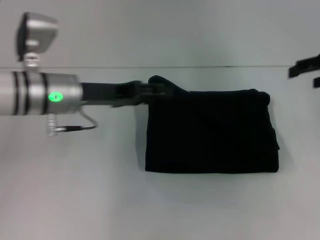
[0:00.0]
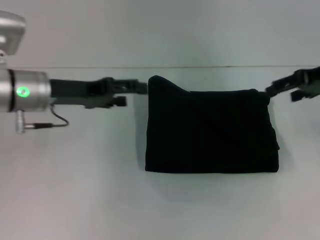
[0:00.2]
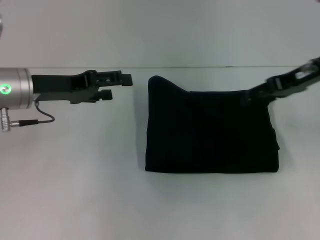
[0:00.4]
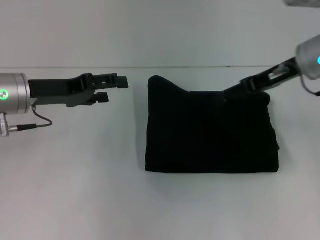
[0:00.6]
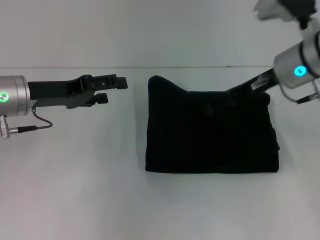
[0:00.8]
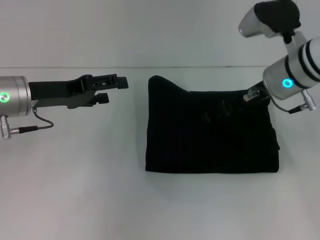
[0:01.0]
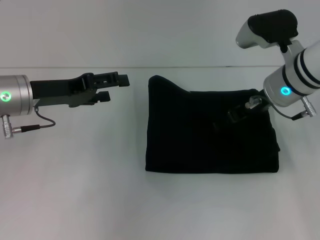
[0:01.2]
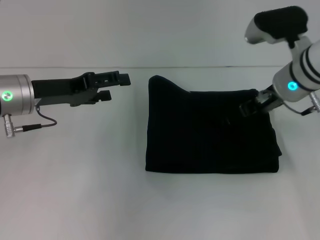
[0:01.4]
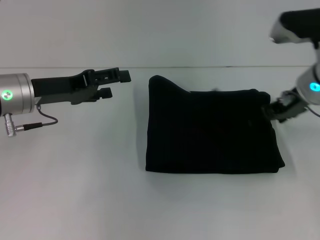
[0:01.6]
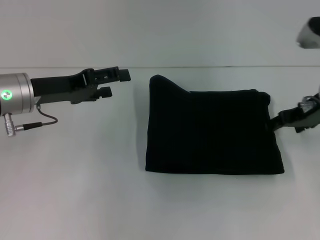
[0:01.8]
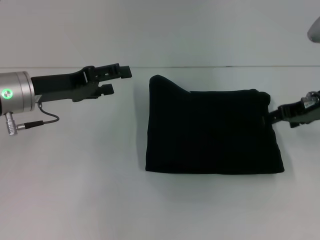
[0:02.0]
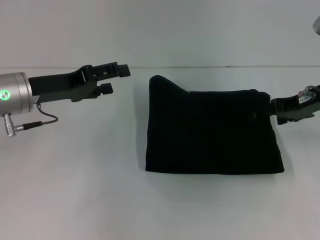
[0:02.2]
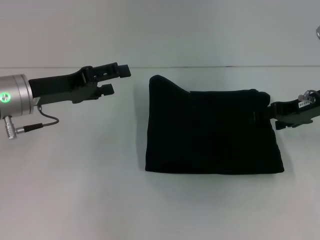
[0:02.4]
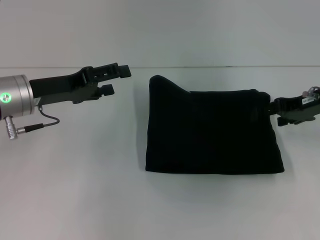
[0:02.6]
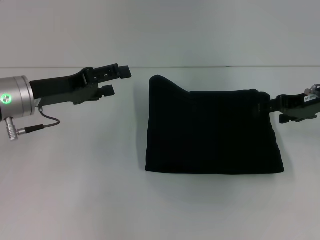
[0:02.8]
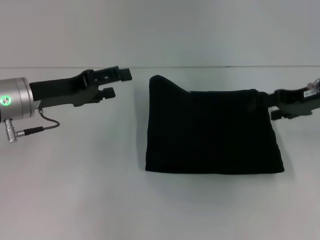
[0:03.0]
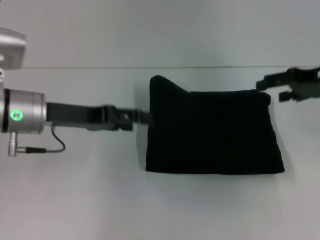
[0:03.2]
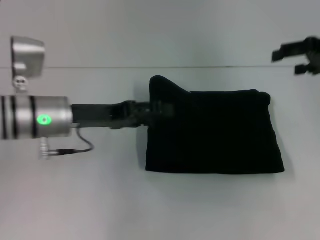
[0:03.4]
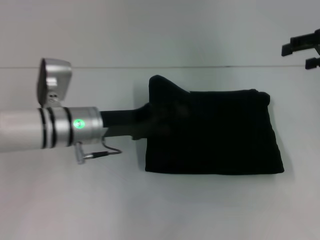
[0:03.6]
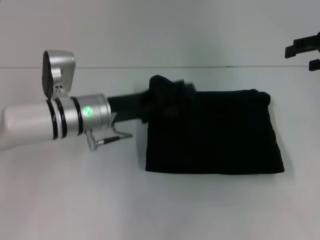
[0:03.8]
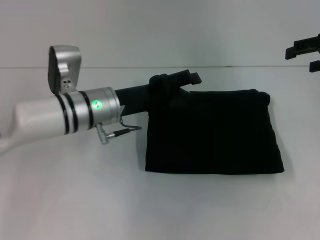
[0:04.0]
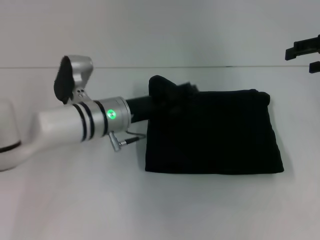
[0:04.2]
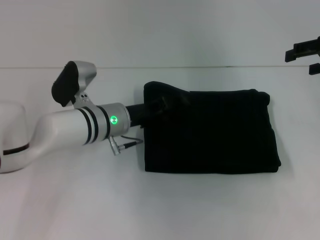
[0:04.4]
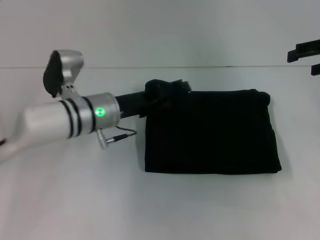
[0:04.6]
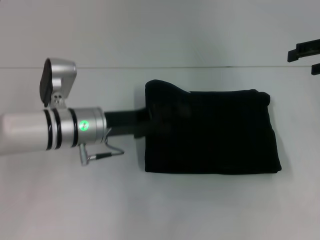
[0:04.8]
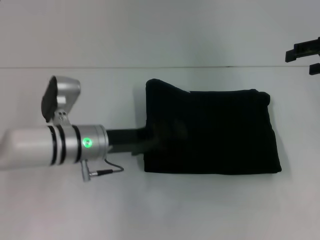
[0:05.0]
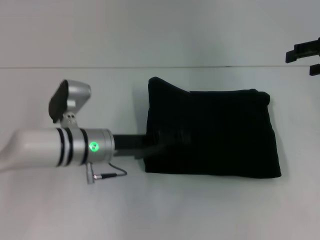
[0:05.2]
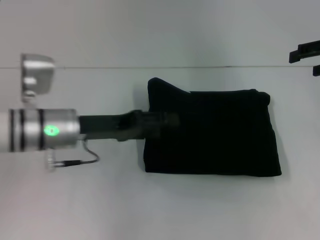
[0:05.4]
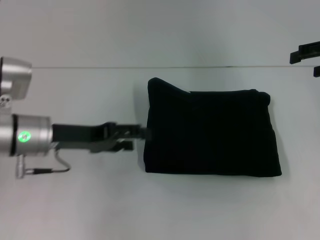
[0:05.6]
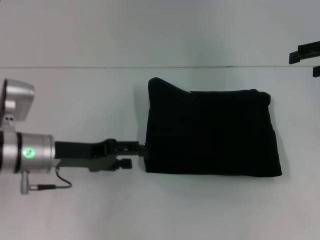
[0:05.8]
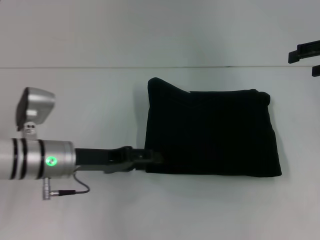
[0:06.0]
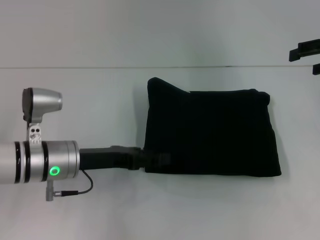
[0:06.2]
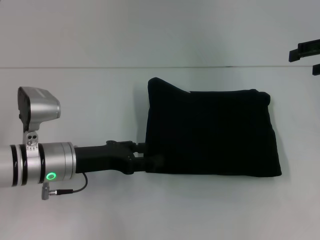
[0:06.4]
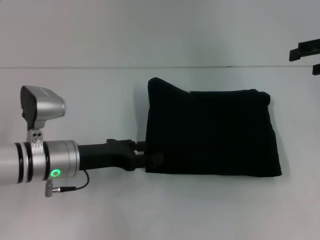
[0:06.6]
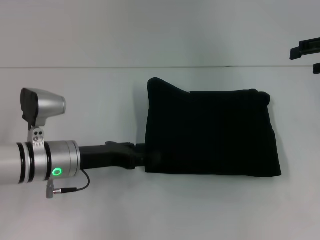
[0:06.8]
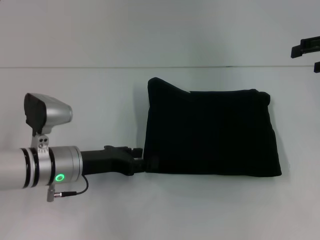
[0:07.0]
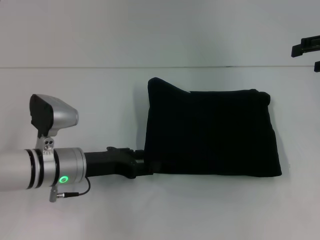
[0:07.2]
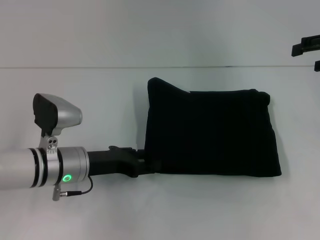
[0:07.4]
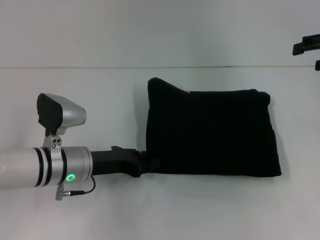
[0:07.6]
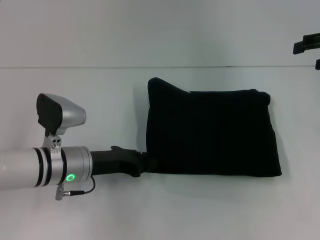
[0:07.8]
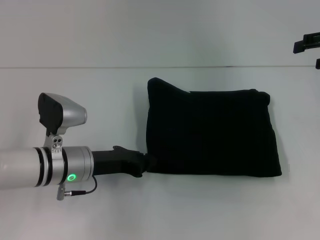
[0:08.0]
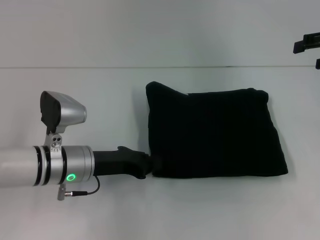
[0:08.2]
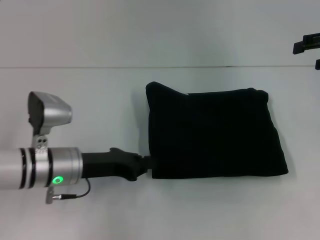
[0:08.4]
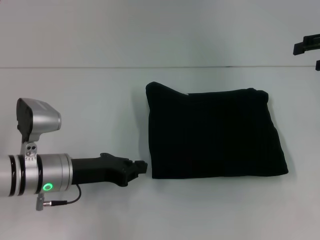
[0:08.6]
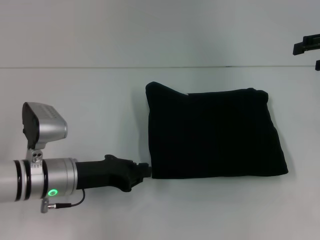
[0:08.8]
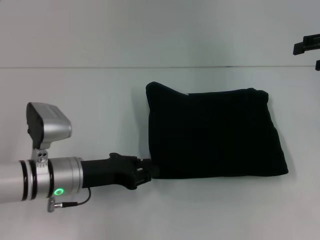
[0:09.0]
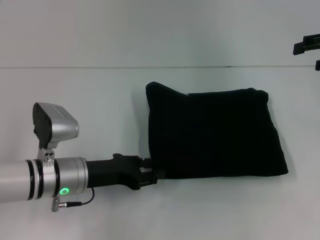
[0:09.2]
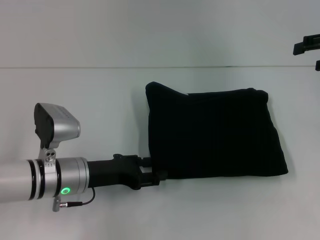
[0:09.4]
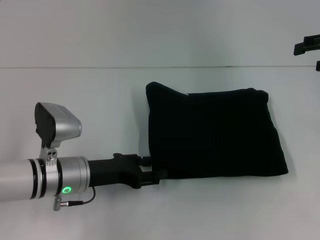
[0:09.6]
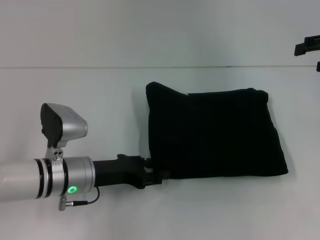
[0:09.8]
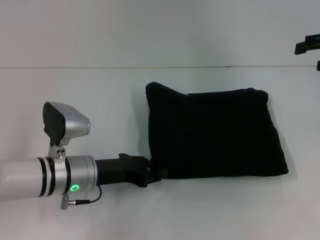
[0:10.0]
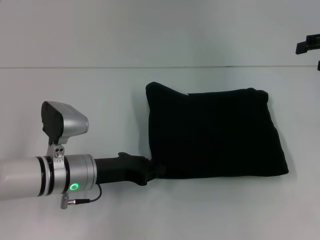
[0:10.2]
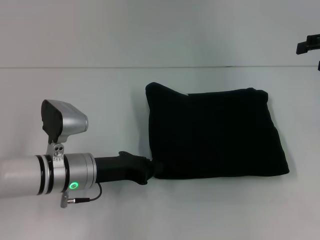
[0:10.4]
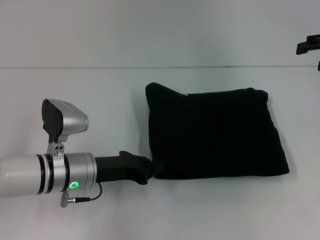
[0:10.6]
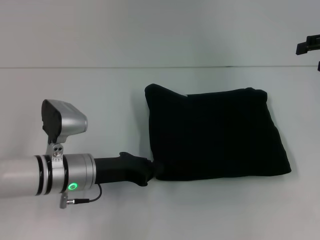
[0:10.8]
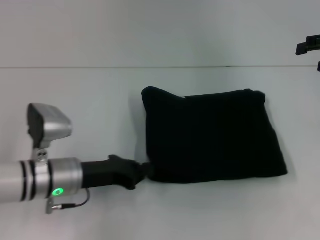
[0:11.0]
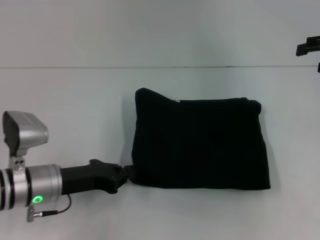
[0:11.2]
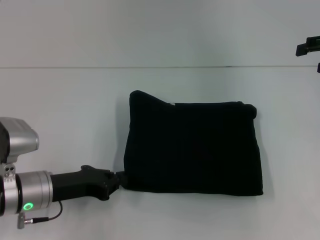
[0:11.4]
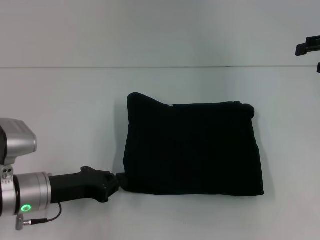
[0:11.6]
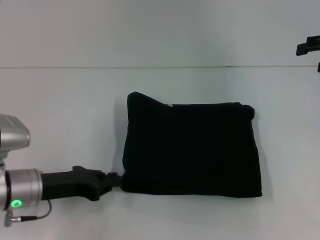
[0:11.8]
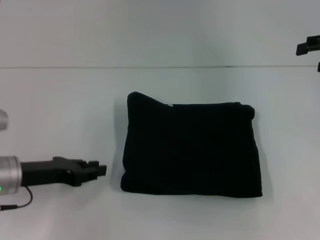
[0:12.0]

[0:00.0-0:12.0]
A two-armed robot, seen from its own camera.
0:00.0 to 0:01.6: The right gripper travels to the left and downward by roughly 15 cm. Meanwhile the left gripper goes roughly 5 cm to the left, and opens up.
0:01.6 to 0:03.0: The right gripper travels to the right by about 5 cm.
0:03.0 to 0:04.4: The right gripper travels upward and to the right by roughly 10 cm. The left gripper travels to the right and downward by roughly 15 cm.
0:04.4 to 0:06.0: The left gripper is displaced to the left and backward by approximately 10 cm.
0:07.6 to 0:09.0: The left gripper closes its fingers.
0:09.0 to 0:10.4: The left gripper opens, then closes once more.
0:10.4 to 0:12.0: The left gripper travels to the left by some 10 cm.

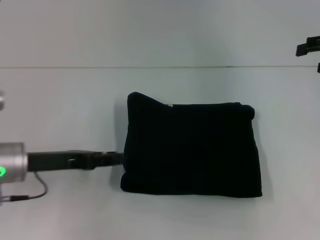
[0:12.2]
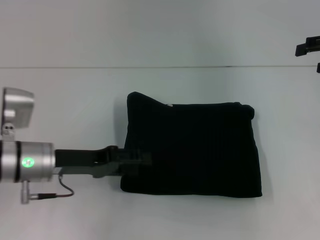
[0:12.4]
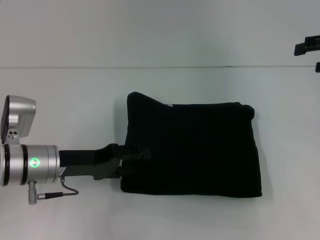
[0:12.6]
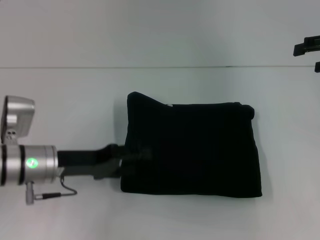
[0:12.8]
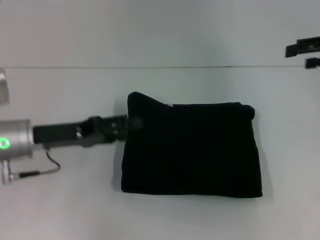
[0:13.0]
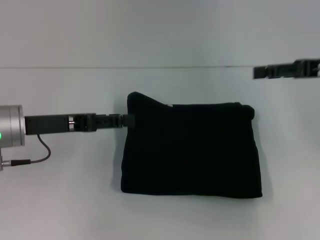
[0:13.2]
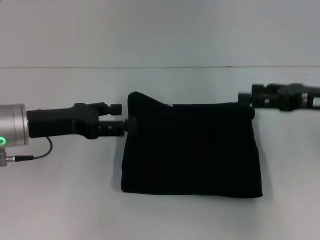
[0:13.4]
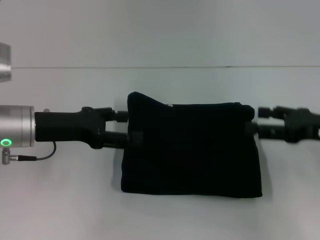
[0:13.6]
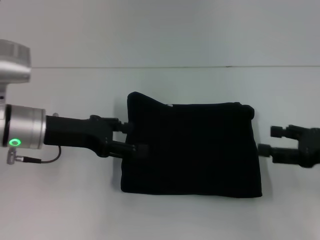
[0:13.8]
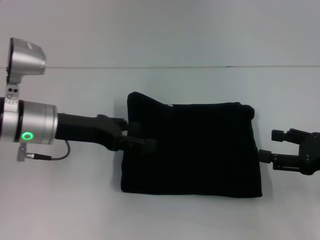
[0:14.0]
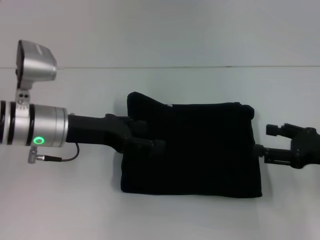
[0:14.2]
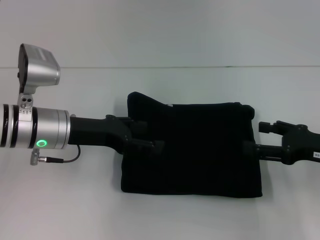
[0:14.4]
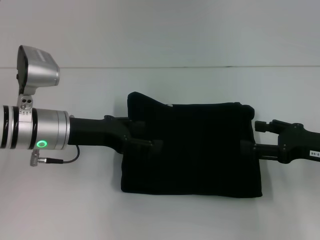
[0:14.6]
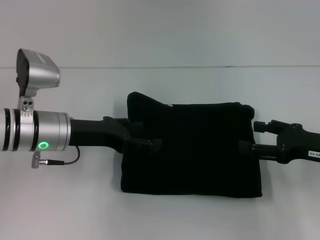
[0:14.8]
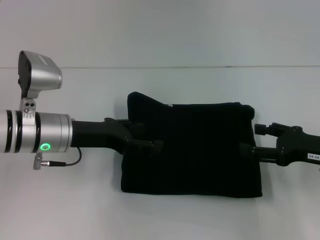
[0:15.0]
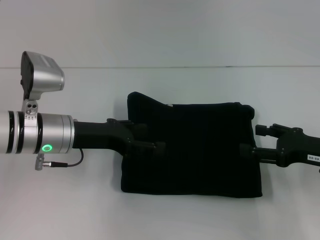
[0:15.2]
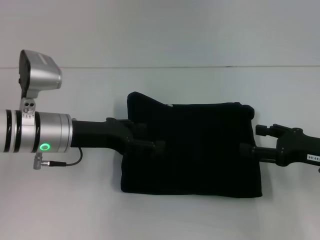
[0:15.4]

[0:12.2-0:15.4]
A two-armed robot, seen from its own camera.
0:12.2 to 0:13.8: The left gripper moves about 5 cm, and opens up; the right gripper shifts about 20 cm downward and backward.
0:13.8 to 0:15.4: The grippers make only small movements.

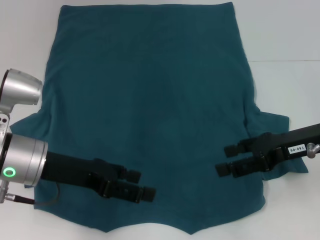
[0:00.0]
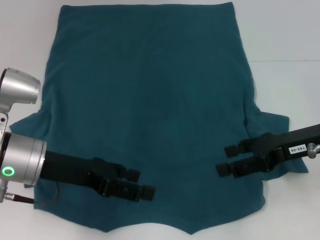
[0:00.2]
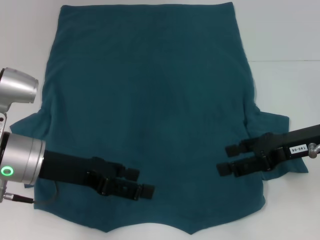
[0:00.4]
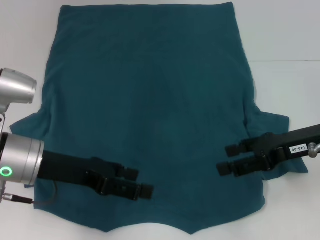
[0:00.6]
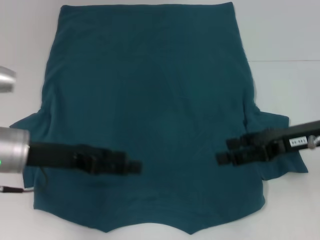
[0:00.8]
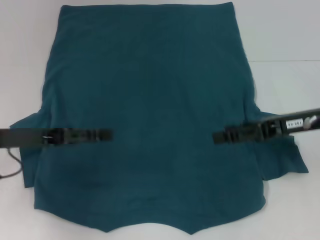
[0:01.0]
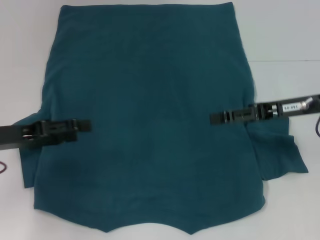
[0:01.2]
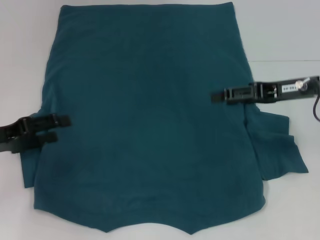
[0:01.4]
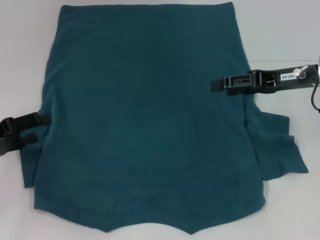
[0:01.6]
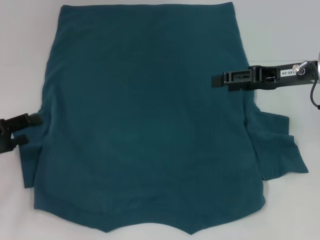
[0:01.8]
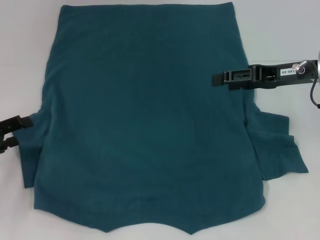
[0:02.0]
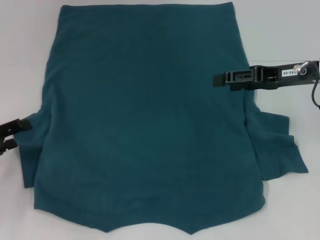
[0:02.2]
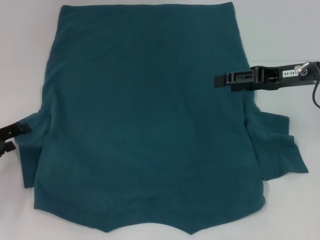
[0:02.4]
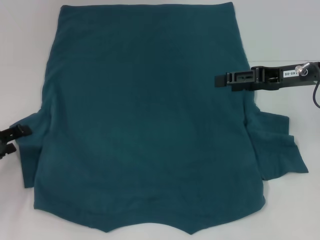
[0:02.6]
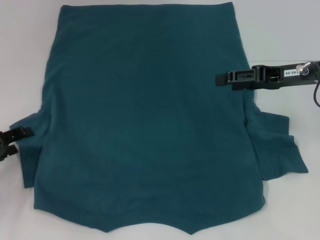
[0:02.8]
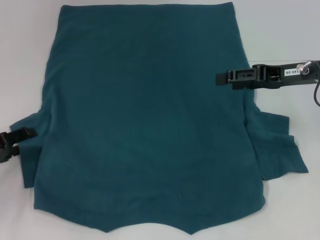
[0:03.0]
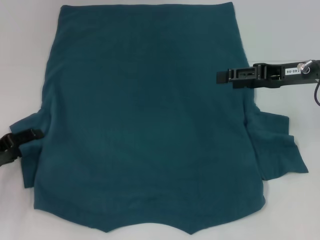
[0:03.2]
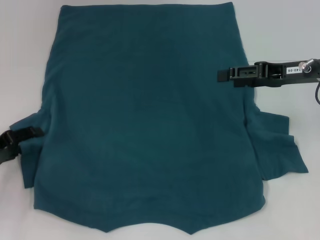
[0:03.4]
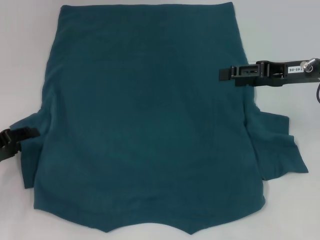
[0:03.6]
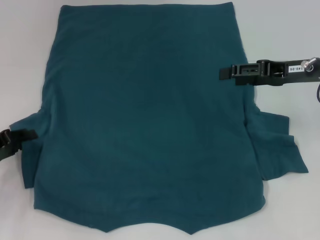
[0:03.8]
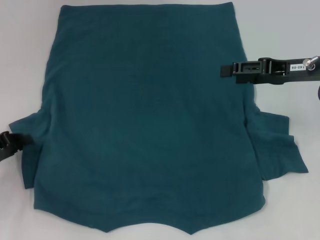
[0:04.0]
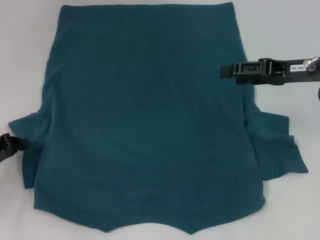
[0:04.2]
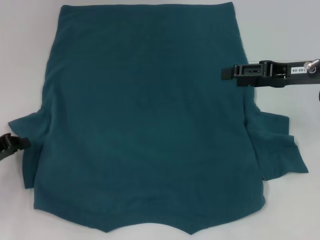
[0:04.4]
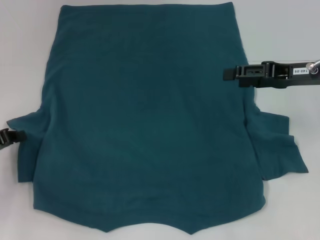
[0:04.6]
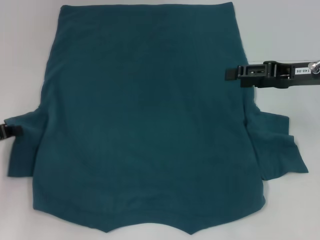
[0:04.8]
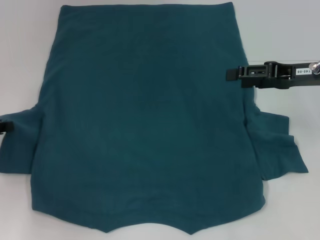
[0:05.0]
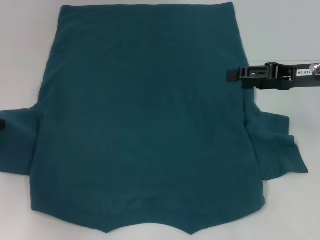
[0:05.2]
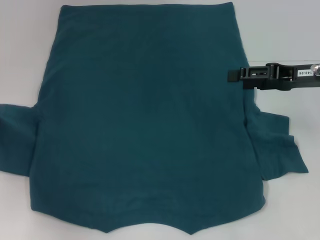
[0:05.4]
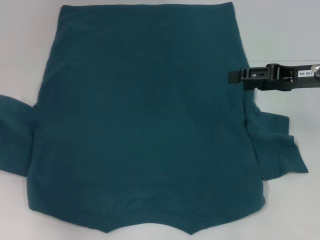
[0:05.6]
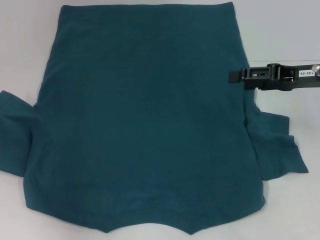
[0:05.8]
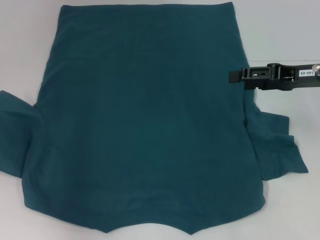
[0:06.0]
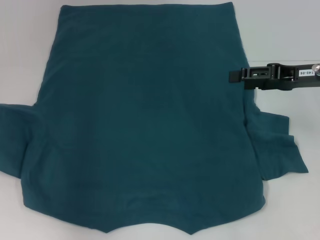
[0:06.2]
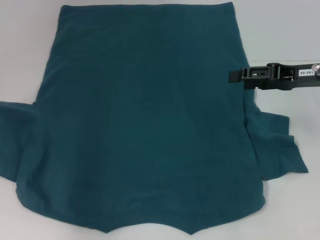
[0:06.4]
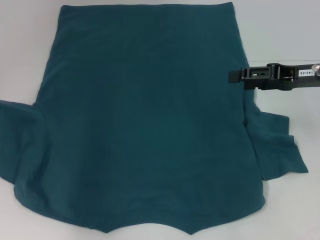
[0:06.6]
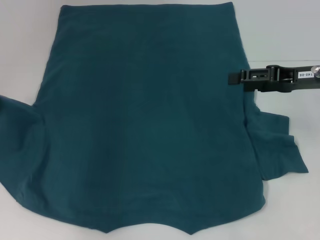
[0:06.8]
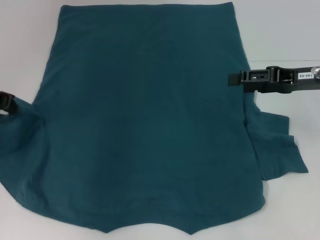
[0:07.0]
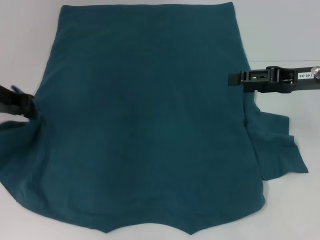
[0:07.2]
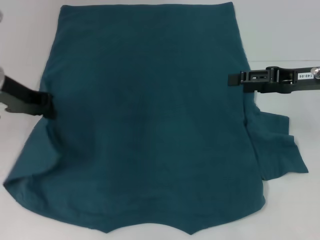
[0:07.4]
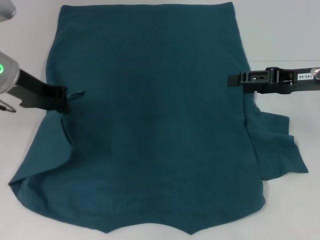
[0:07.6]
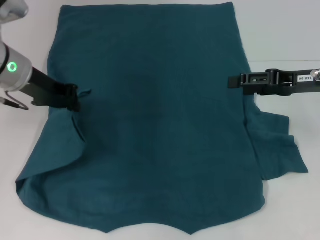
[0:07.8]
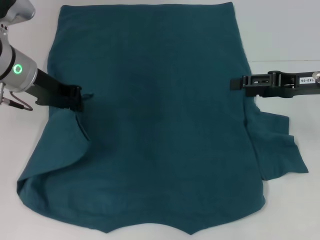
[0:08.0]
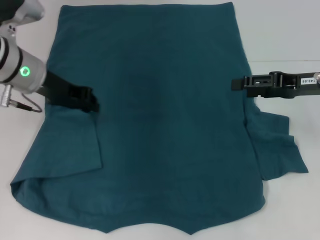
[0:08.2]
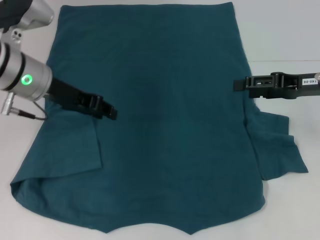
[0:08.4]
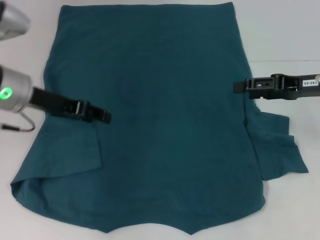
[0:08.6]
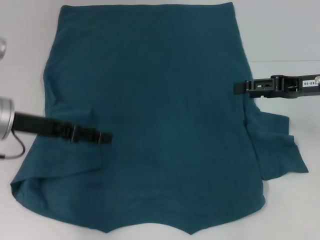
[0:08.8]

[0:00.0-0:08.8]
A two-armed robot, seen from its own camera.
Step, 0:00.0 to 0:08.4: Fold the bottom left sleeve with your left hand.
0:00.0 to 0:01.4: The left gripper travels to the left by approximately 10 cm, while the right gripper changes place by about 5 cm.
0:01.4 to 0:03.0: The left gripper ends up roughly 5 cm from where it was.
0:03.0 to 0:04.4: The left gripper closes.
0:04.4 to 0:05.8: The left gripper shifts about 10 cm upward and forward.
0:05.8 to 0:07.4: The left gripper goes roughly 10 cm to the right.
0:07.4 to 0:08.8: The left gripper goes about 5 cm backward, and opens its fingers.
